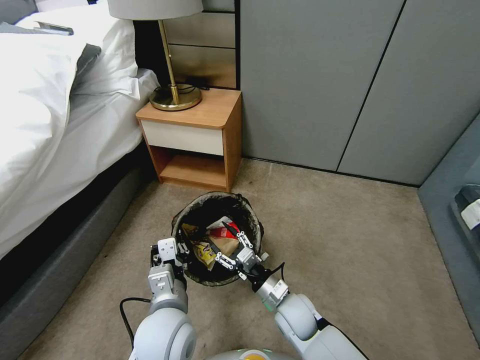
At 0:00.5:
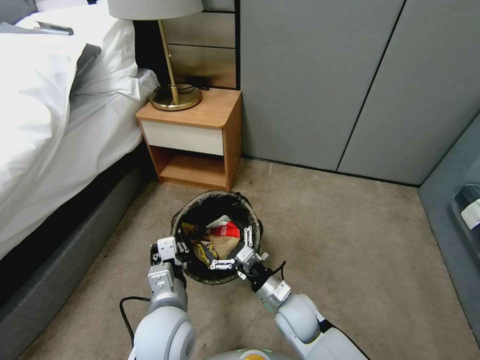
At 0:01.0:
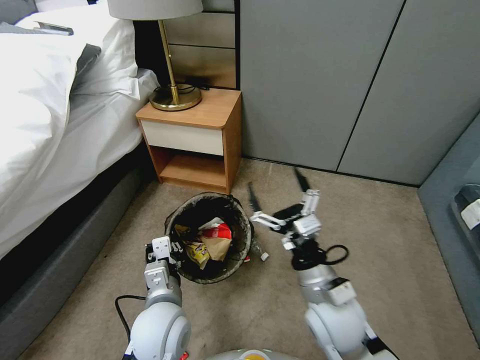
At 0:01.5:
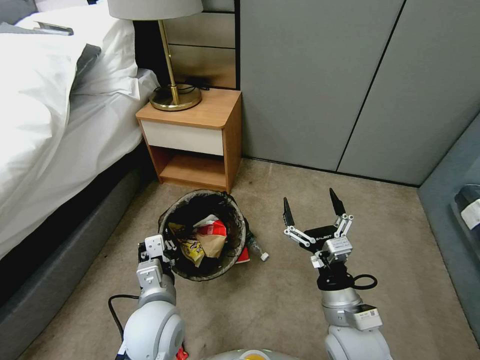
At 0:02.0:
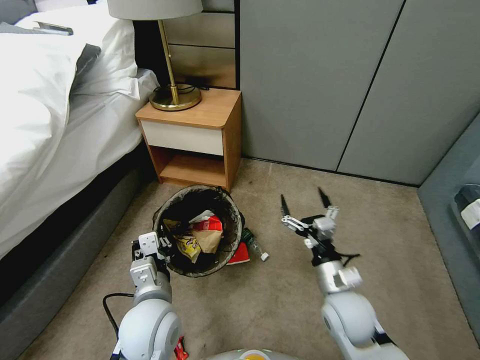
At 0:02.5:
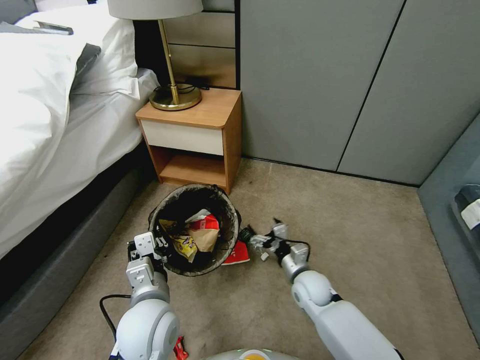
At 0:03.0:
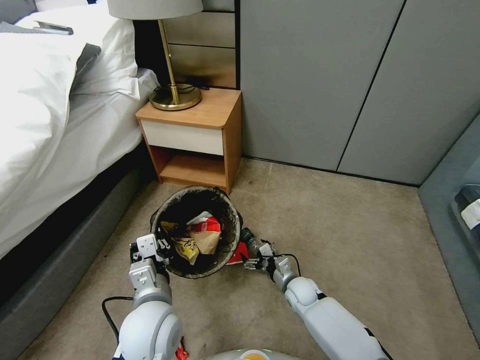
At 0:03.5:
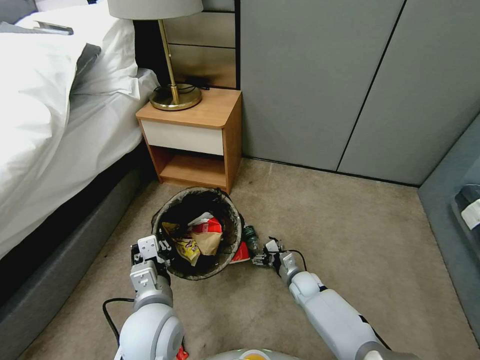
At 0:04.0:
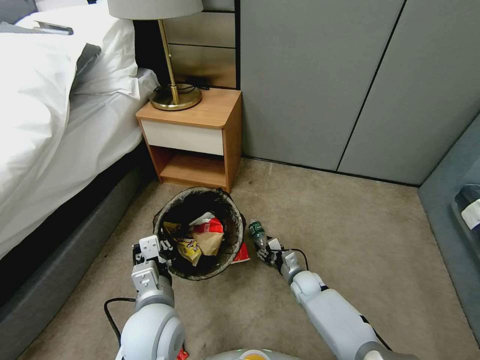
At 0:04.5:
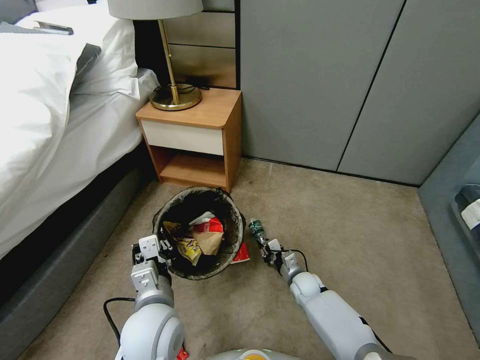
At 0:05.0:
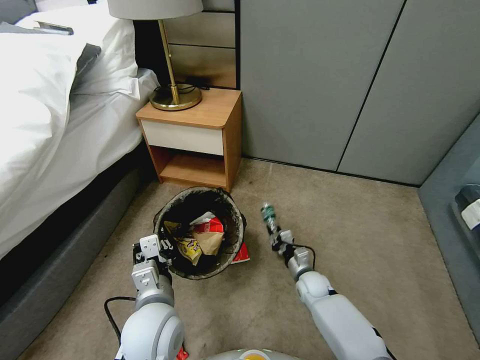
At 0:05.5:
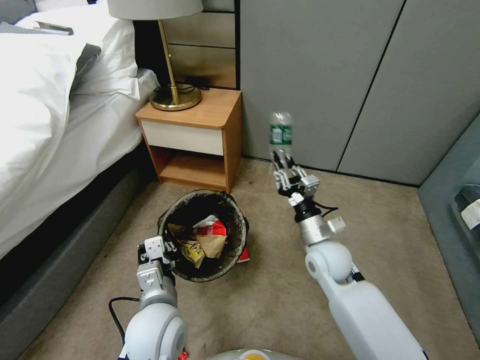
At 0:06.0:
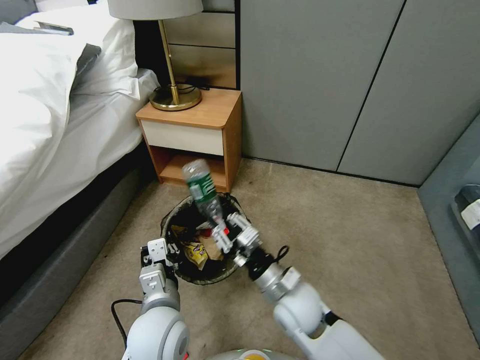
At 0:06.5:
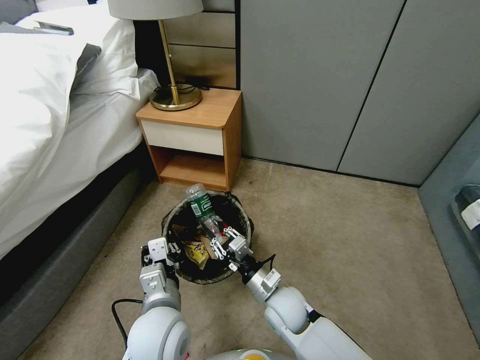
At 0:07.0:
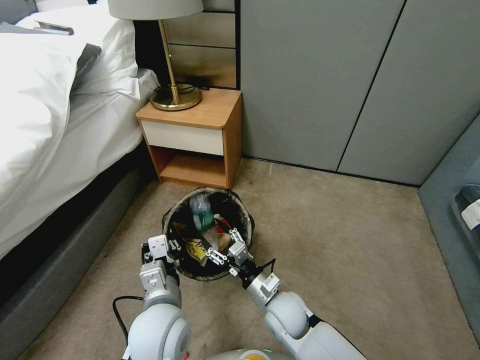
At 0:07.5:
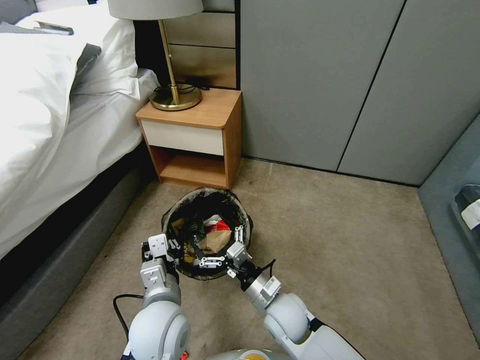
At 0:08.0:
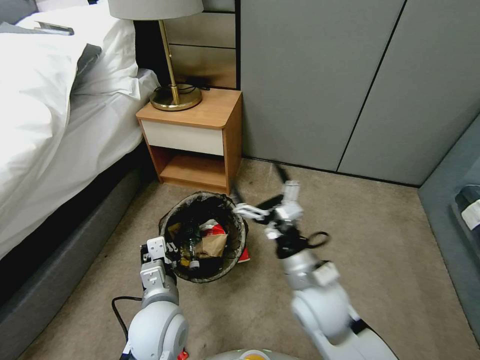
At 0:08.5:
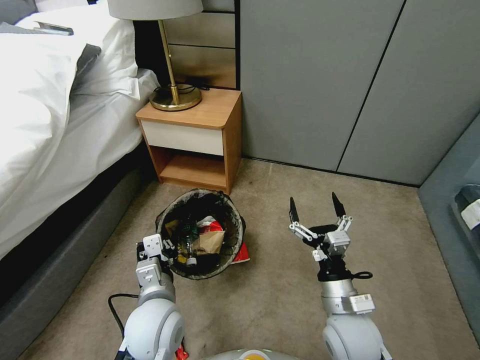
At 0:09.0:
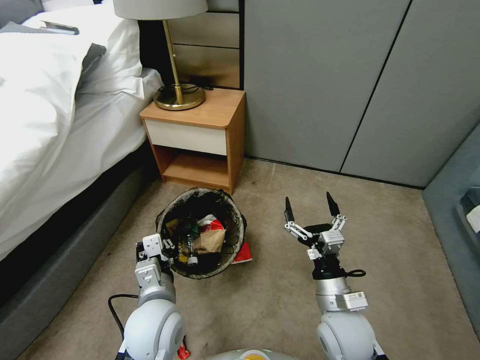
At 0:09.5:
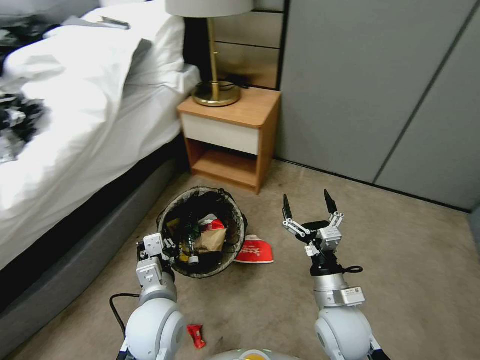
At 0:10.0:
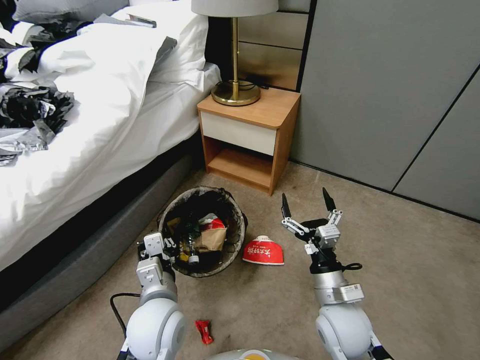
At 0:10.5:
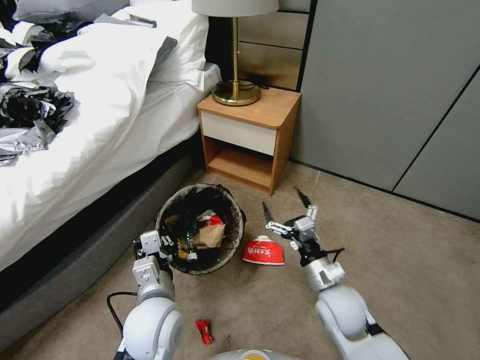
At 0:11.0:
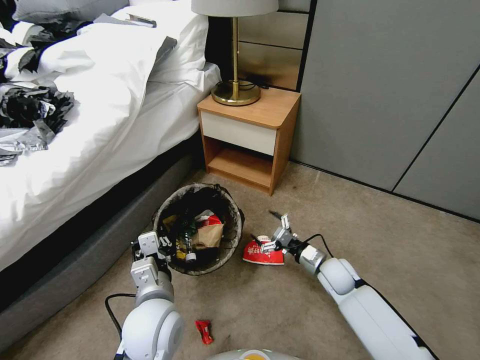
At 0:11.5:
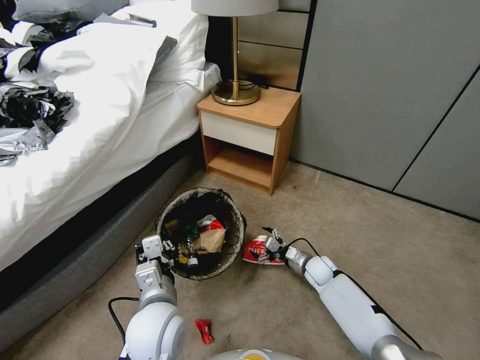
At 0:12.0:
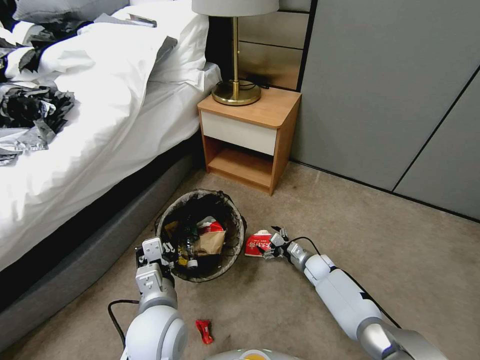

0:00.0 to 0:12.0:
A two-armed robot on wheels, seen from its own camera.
Task of the whole recording: Pick up the trash bin, then pick up the garbage from the floor and place it into the trash bin.
0:00.0 to 0:02.0: The right gripper is displaced upward and to the right by roughly 15 cm, and opens.
0:02.0 to 0:04.0: The right gripper moves downward and forward, approximately 25 cm, and closes up.
0:04.0 to 0:06.0: The right gripper shifts about 25 cm upward, backward and to the left, and closes.
0:06.0 to 0:08.0: The right gripper heads upward, covering roughly 5 cm, and opens its fingers.
0:08.0 to 0:10.0: The right gripper goes roughly 10 cm downward and to the right.
0:10.0 to 0:12.0: The right gripper travels downward and forward by about 30 cm.

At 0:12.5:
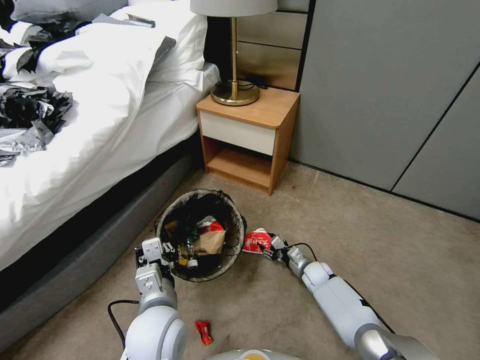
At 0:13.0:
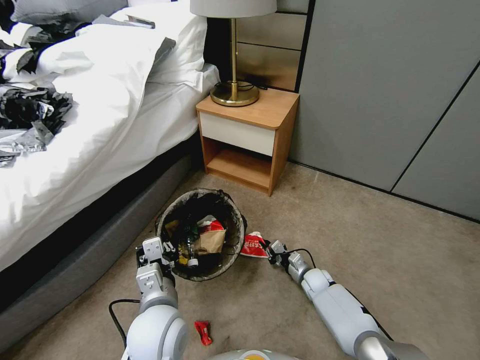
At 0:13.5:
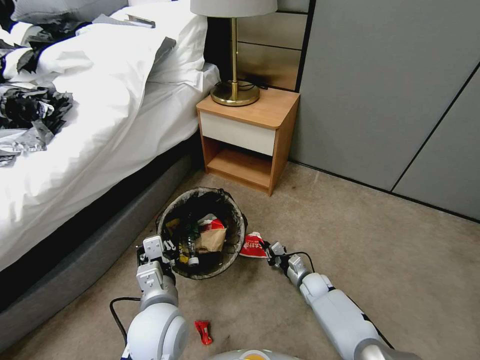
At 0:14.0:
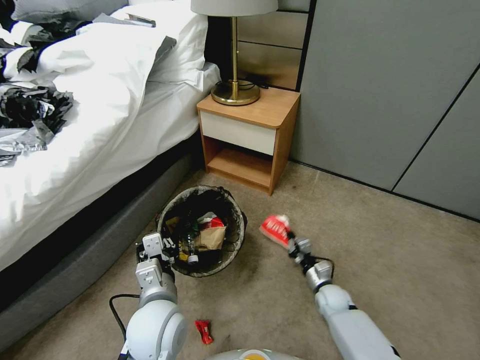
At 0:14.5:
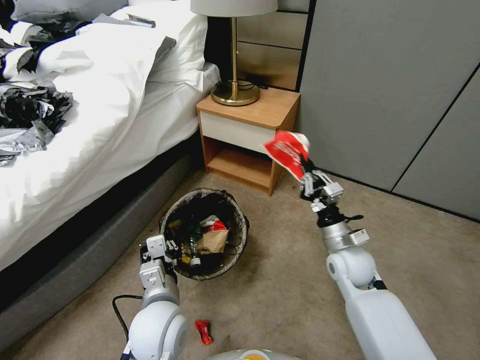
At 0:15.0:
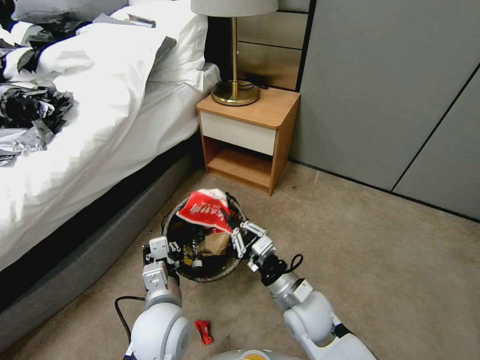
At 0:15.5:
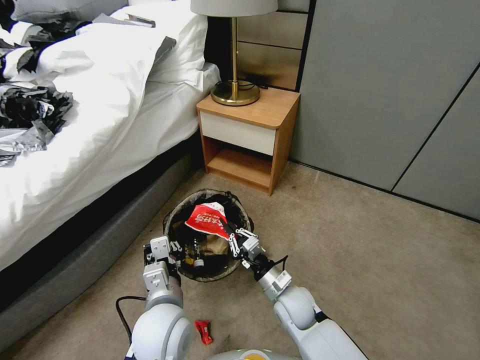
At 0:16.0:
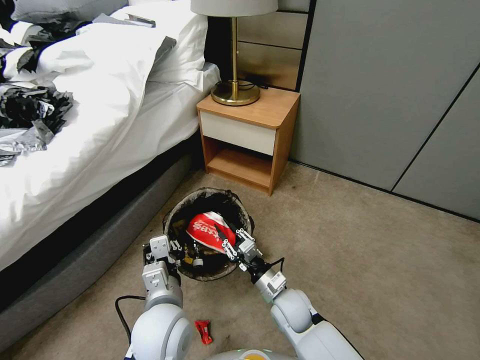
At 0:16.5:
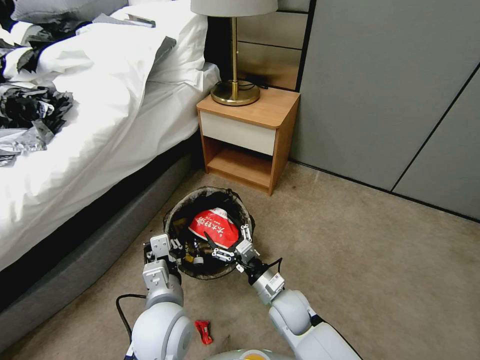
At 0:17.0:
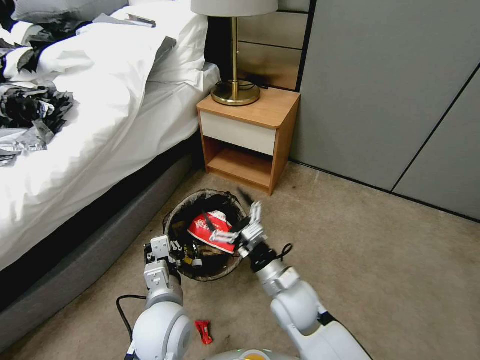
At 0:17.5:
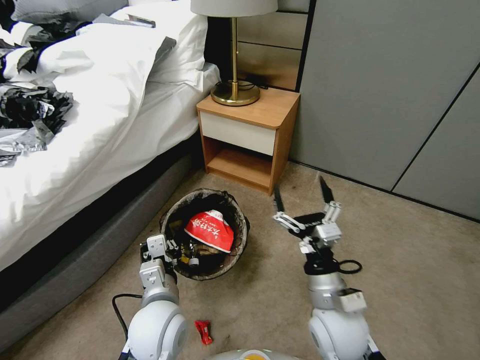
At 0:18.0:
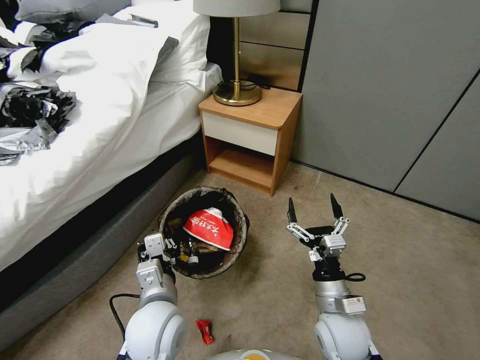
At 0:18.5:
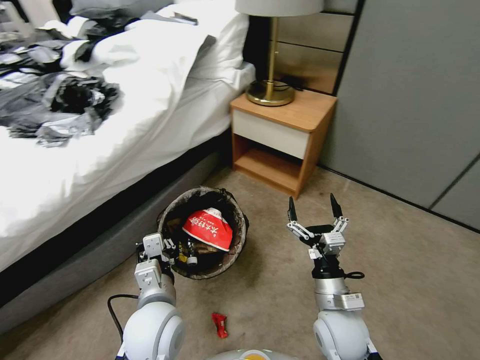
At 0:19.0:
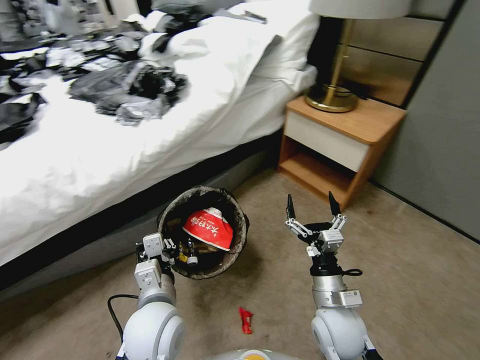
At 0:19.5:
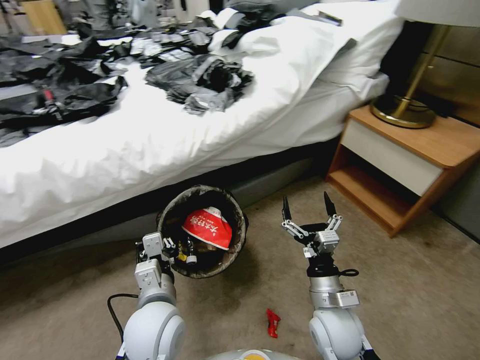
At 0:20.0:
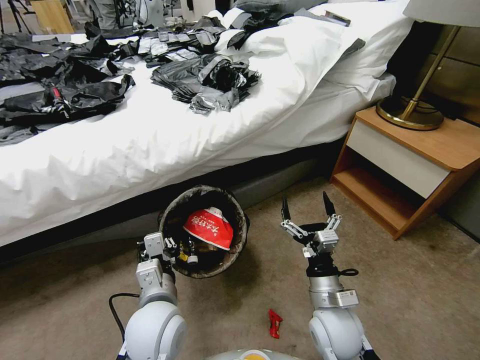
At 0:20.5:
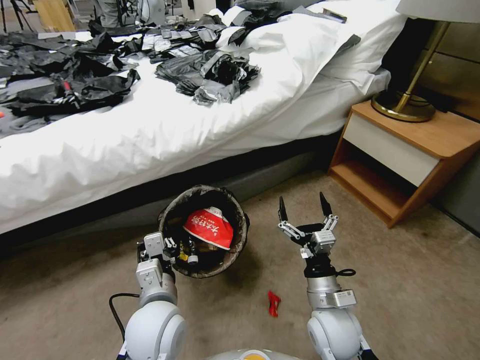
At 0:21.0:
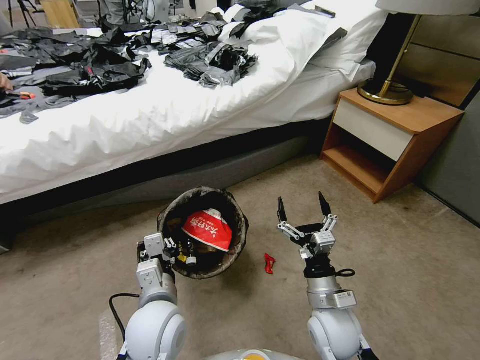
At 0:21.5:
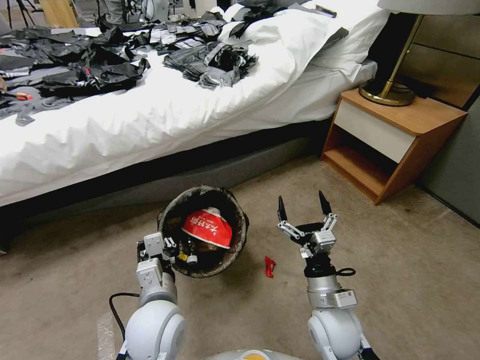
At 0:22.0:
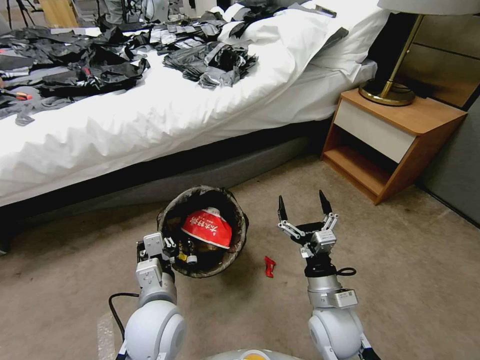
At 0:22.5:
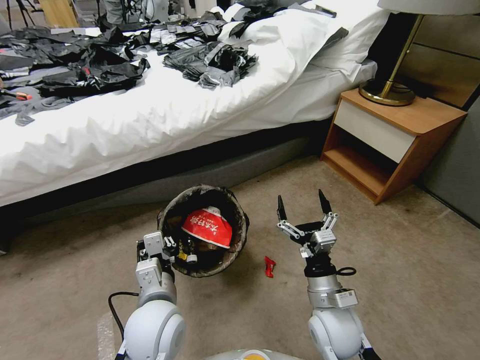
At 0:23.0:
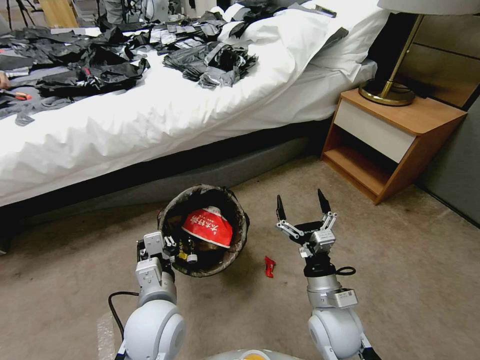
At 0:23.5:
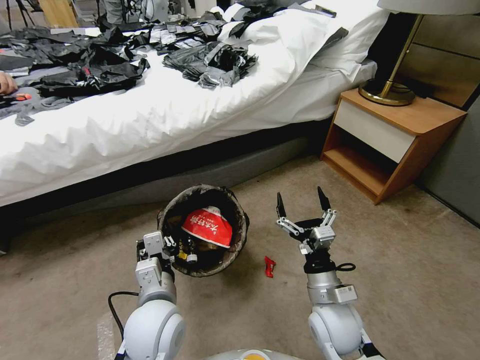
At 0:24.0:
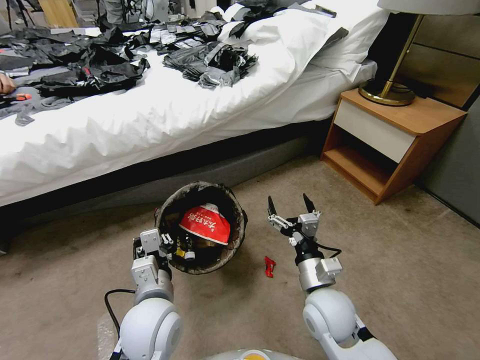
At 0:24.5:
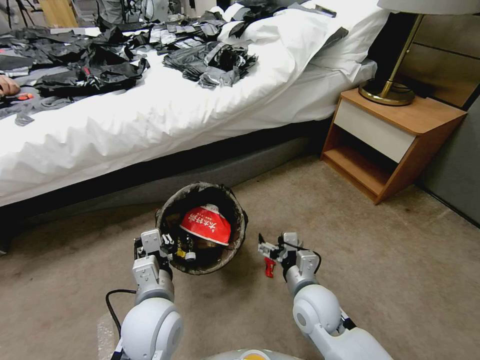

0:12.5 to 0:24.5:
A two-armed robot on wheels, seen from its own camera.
Task of the whole recording: Pick up the trash bin, then pick up the garbage from the floor and place it into the trash bin.
0:12.5 to 0:14.5: The right gripper shifts roughly 25 cm upward, and closes its fingers.
0:14.5 to 0:16.5: The right gripper heads to the left, downward and backward, covering about 20 cm, and opens its fingers.
0:16.5 to 0:18.5: The right gripper travels to the right, upward and backward by some 15 cm.

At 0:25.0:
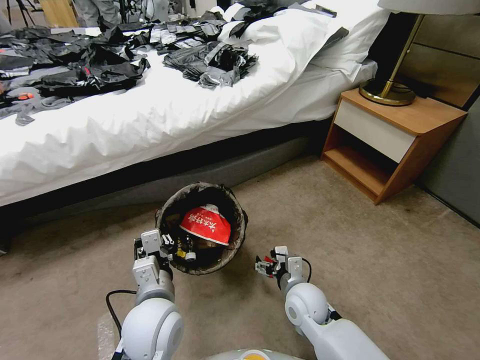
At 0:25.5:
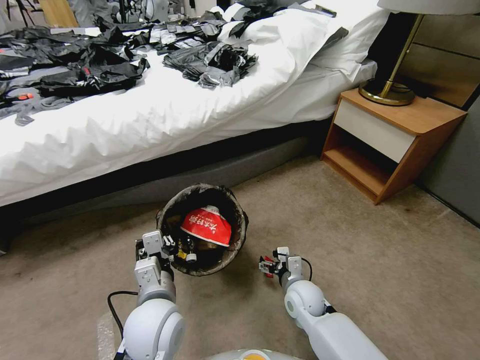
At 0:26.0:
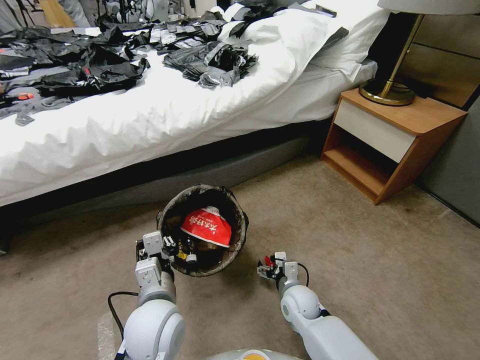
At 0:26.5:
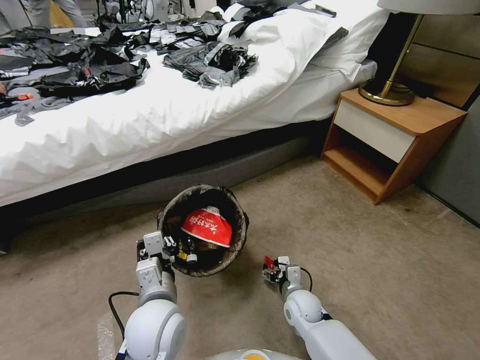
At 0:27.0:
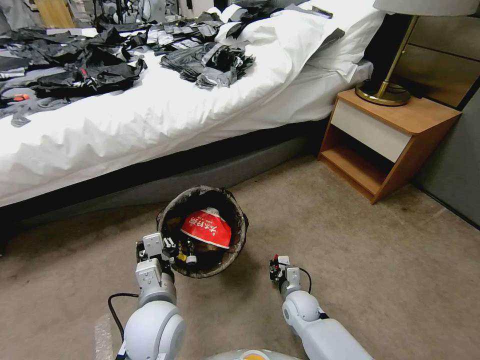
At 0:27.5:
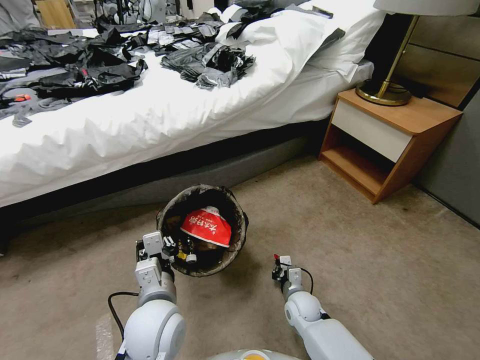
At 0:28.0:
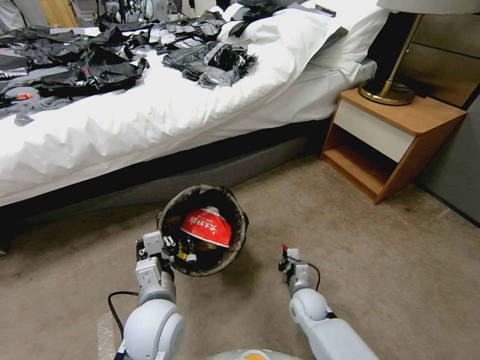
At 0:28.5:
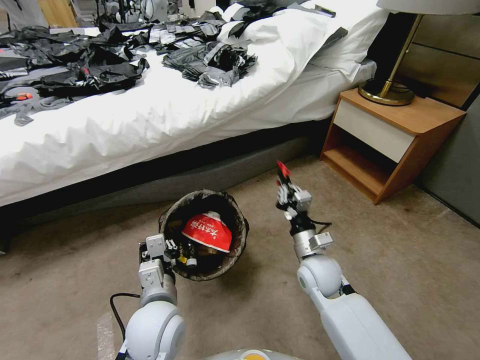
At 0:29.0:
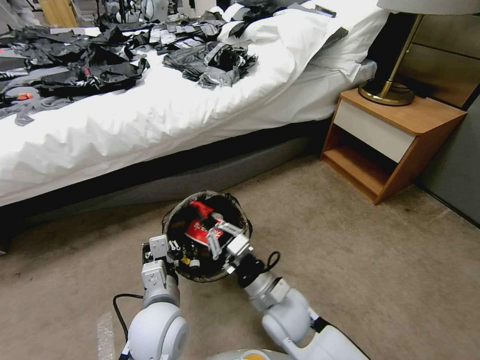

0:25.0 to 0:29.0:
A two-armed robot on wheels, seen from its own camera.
Task of the whole recording: Pick up the trash bin, then pick up the garbage from the floor and place it into the trash bin.
0:25.0 to 0:27.0: The right gripper travels downward by about 10 cm, and closes.
0:27.0 to 0:29.0: The right gripper heads upward, covering approximately 20 cm.
